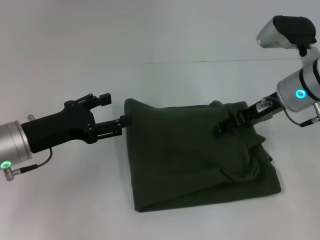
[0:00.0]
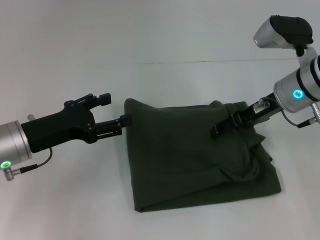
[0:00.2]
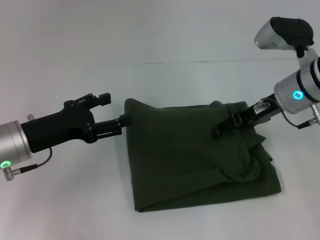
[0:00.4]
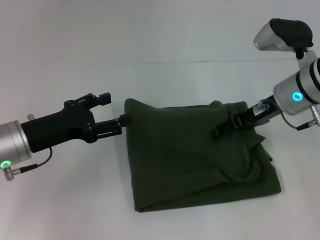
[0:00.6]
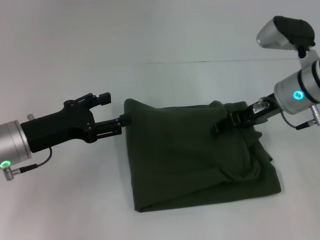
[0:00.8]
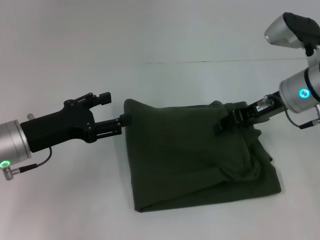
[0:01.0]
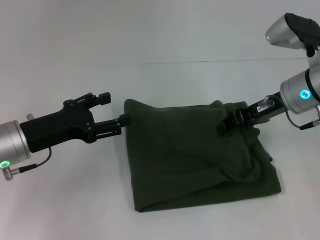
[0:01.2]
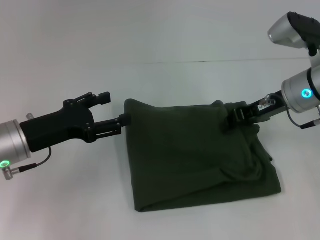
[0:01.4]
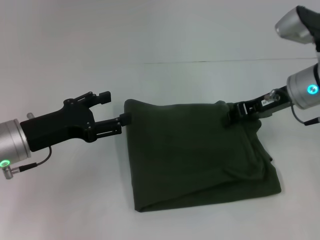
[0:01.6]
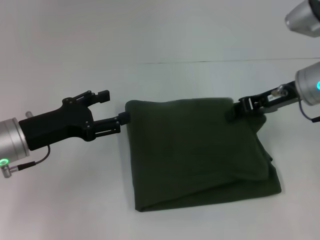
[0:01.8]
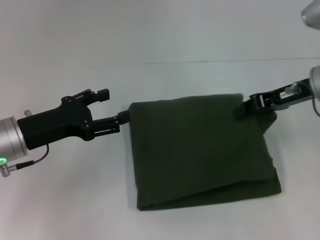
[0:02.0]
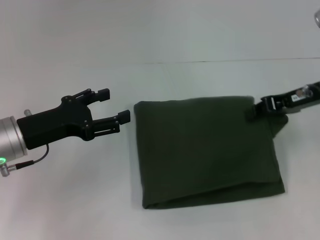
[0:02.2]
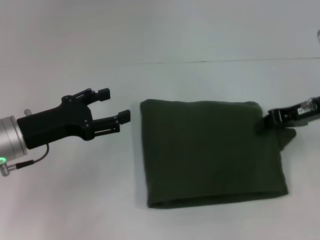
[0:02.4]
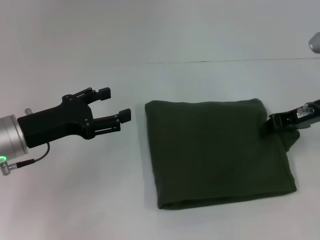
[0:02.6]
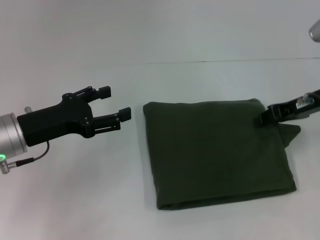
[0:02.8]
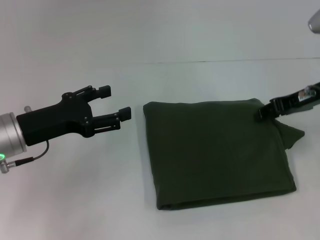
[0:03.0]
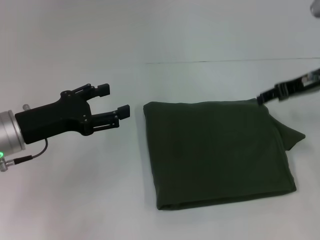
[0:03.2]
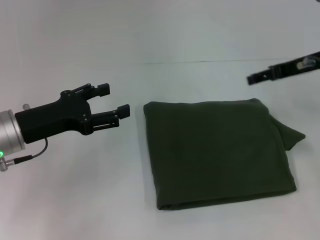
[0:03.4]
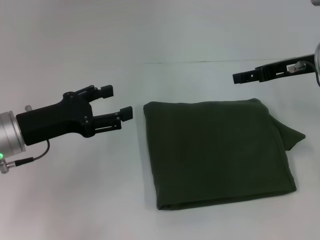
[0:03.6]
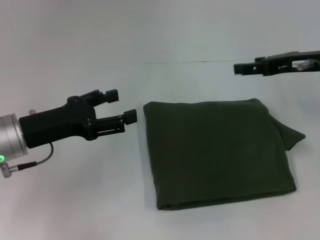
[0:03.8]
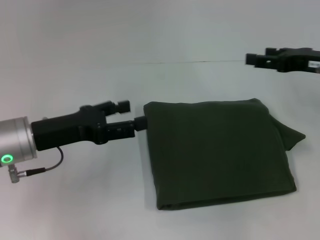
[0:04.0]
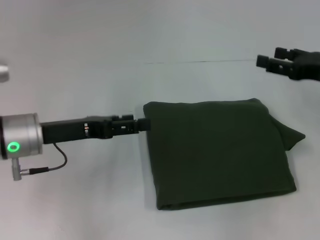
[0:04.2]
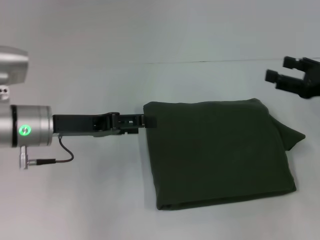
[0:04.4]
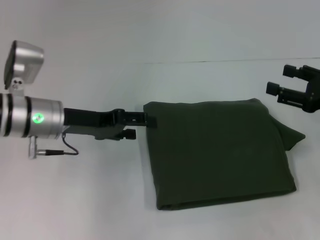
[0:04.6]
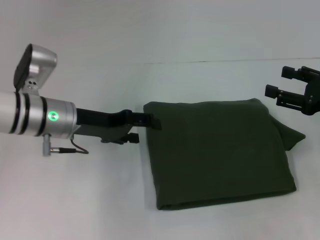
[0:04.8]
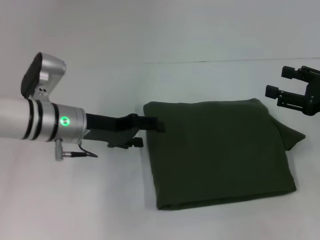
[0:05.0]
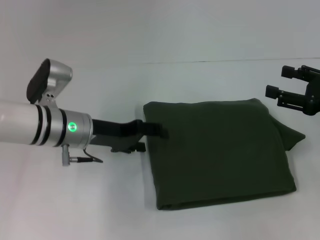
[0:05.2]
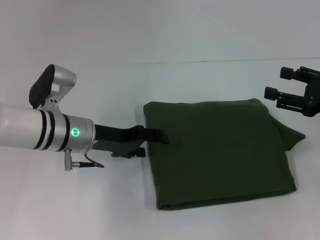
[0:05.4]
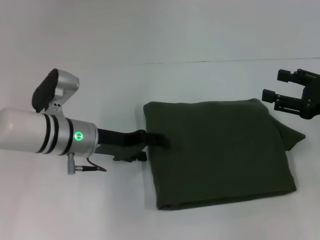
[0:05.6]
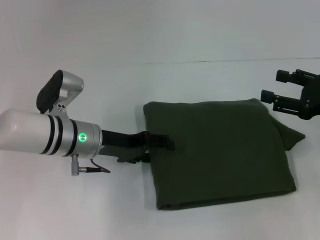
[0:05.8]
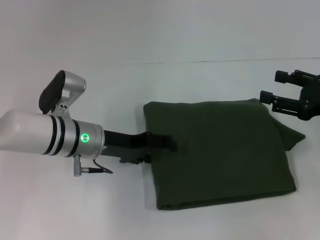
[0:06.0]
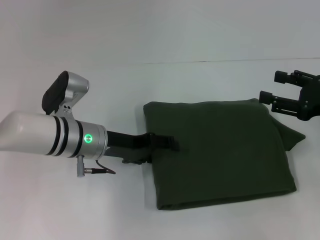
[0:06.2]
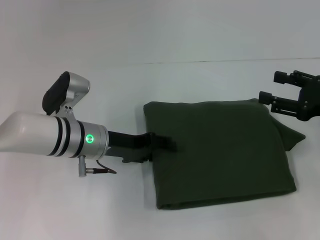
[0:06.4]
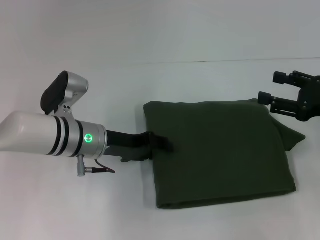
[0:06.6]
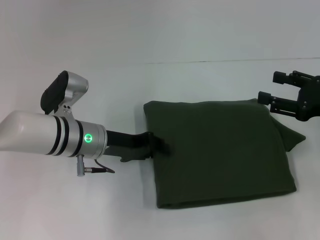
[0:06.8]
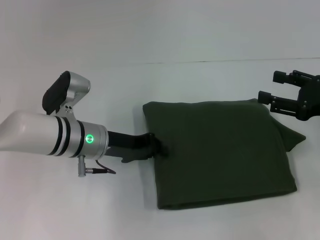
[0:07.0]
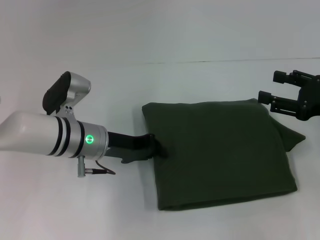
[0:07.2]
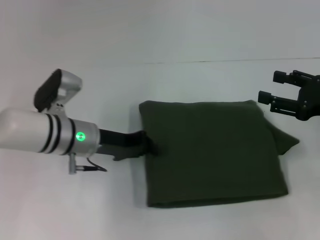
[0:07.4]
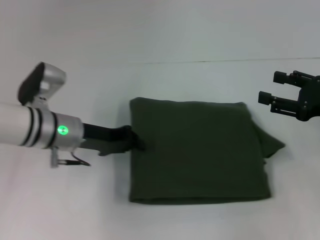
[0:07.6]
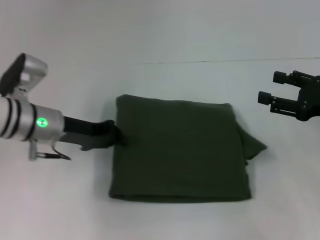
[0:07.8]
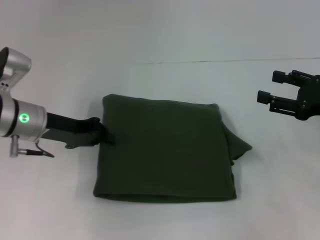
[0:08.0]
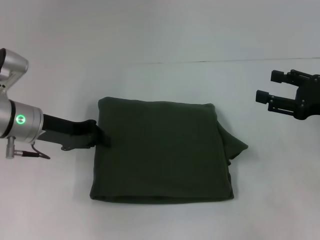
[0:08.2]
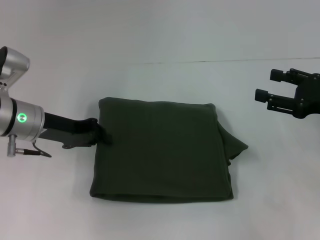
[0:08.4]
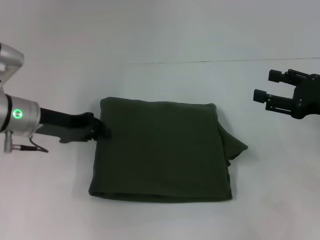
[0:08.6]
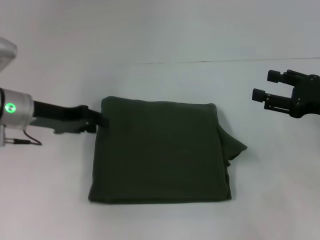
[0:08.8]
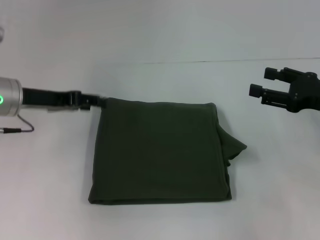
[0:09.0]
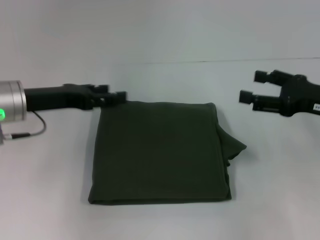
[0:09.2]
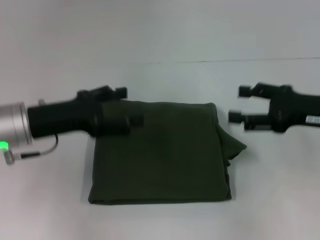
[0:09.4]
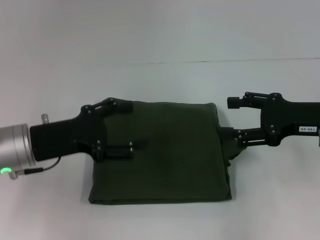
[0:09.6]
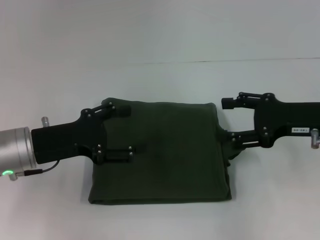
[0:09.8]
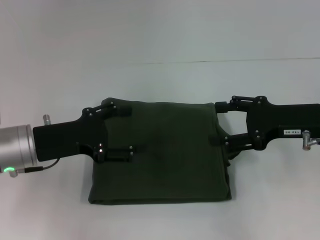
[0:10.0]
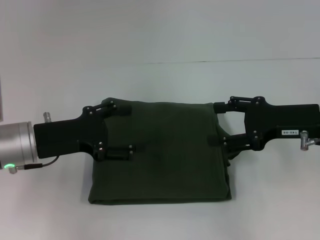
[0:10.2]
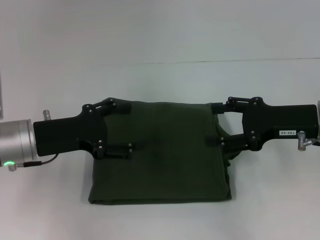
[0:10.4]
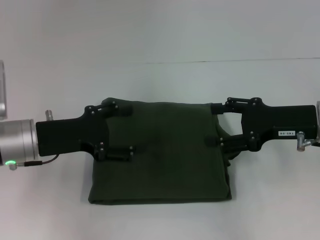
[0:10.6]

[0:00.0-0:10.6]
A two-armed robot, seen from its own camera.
0:00.0 to 0:01.6: The right gripper closes.
0:01.6 to 0:03.0: The grippers stay close to where they were, moving slightly.
0:03.0 to 0:04.6: The right gripper travels backward and to the right by some 10 cm, and opens its fingers. Meanwhile the left gripper shifts by some 5 cm.
0:04.6 to 0:06.0: The left gripper shifts some 5 cm to the right.
0:06.0 to 0:07.6: The left gripper closes up.
0:07.6 to 0:09.0: The left gripper is displaced to the left and upward by about 10 cm.
0:09.0 to 0:10.6: The right gripper travels to the left by roughly 5 cm; the left gripper shifts approximately 5 cm backward, and opens up.

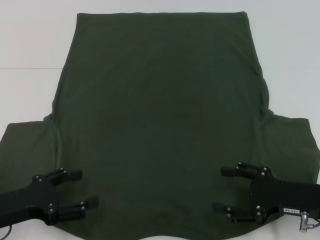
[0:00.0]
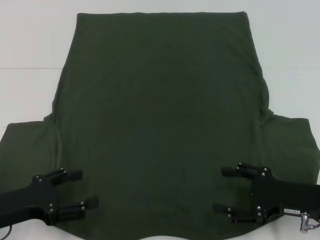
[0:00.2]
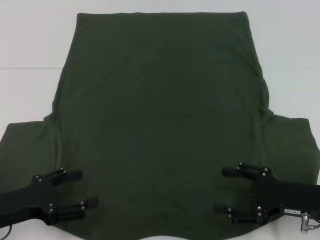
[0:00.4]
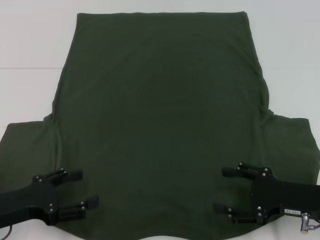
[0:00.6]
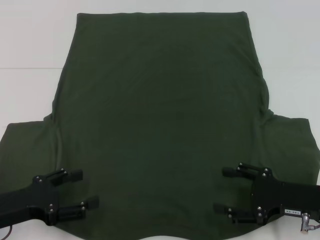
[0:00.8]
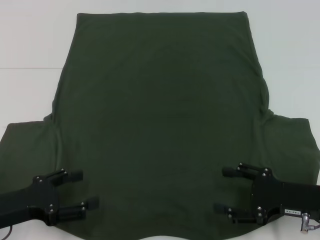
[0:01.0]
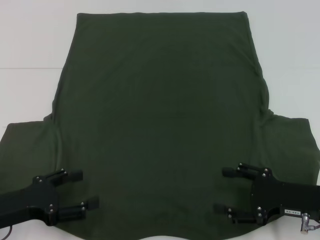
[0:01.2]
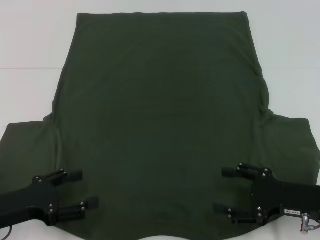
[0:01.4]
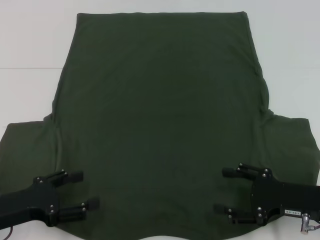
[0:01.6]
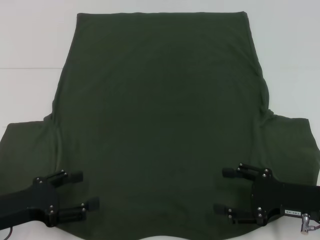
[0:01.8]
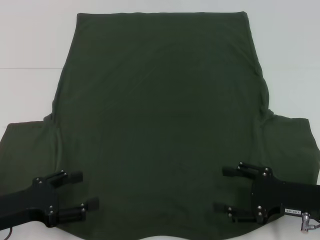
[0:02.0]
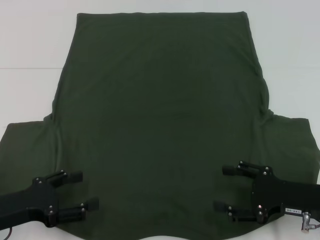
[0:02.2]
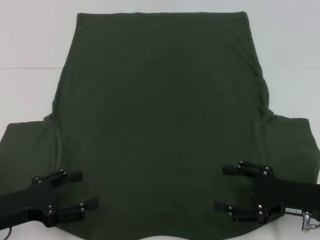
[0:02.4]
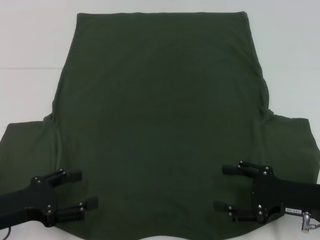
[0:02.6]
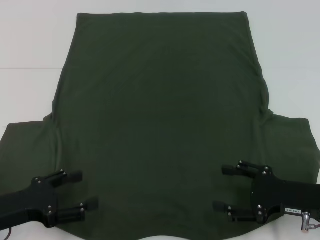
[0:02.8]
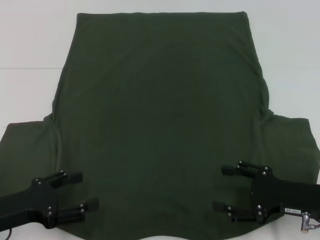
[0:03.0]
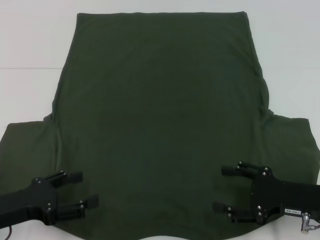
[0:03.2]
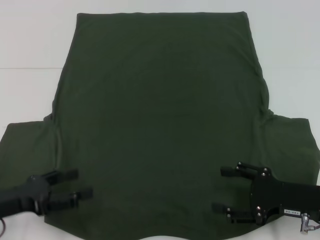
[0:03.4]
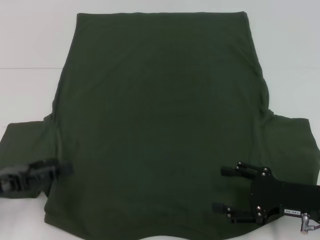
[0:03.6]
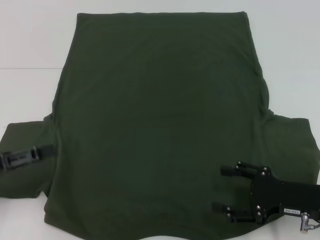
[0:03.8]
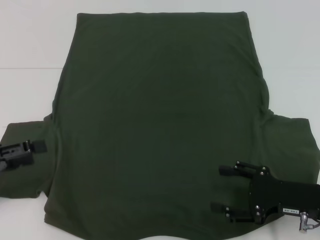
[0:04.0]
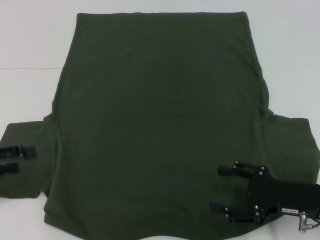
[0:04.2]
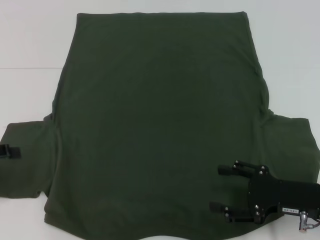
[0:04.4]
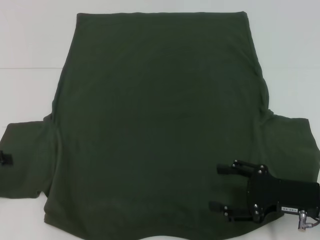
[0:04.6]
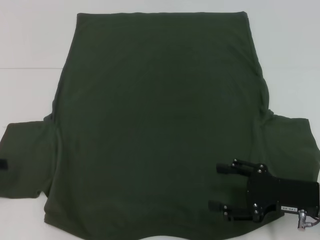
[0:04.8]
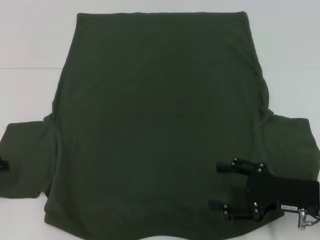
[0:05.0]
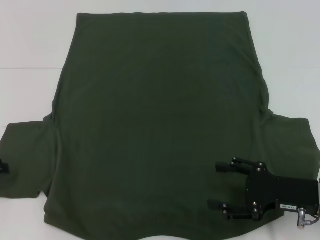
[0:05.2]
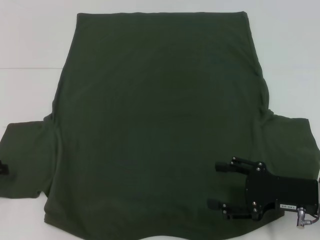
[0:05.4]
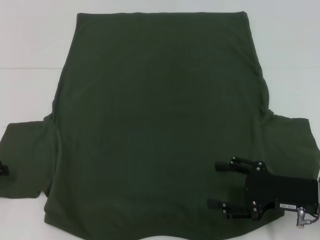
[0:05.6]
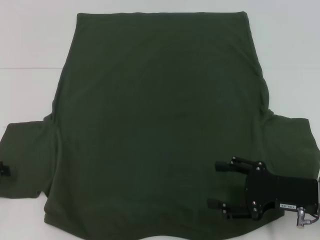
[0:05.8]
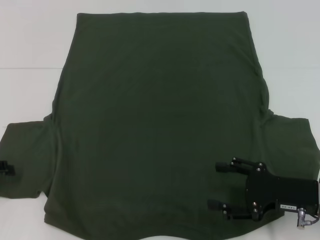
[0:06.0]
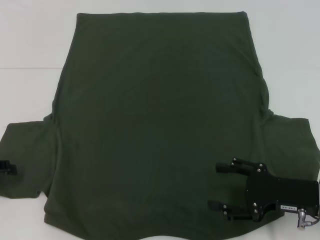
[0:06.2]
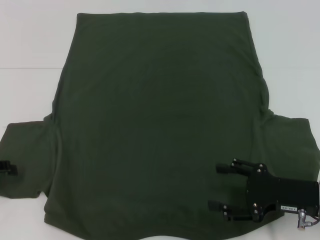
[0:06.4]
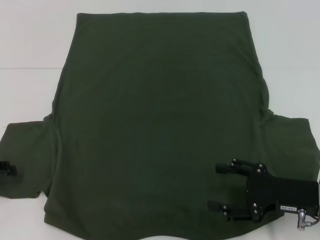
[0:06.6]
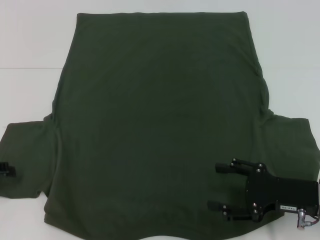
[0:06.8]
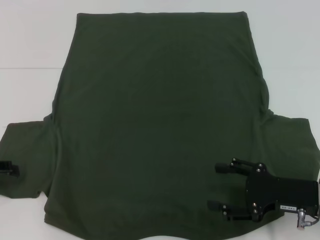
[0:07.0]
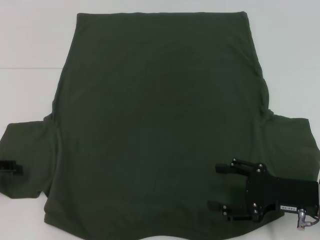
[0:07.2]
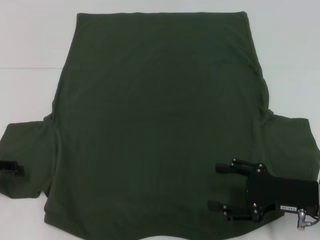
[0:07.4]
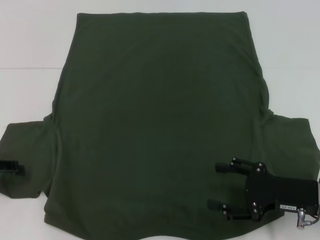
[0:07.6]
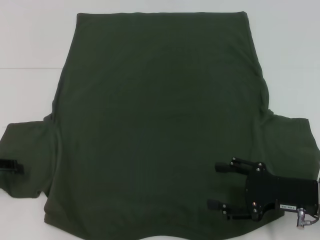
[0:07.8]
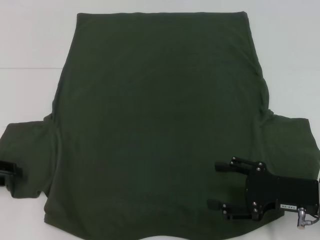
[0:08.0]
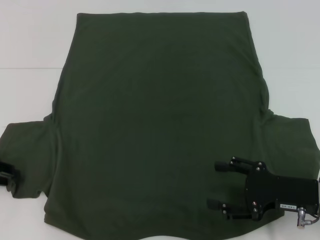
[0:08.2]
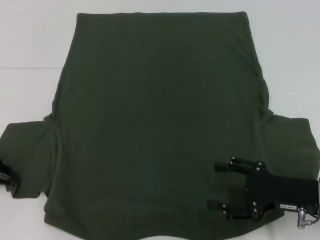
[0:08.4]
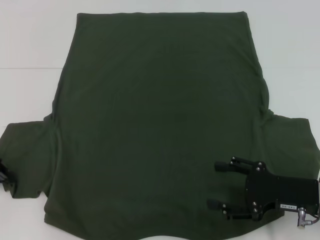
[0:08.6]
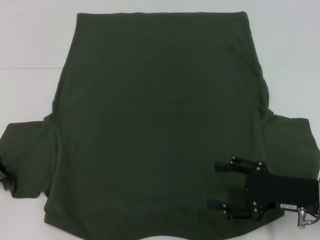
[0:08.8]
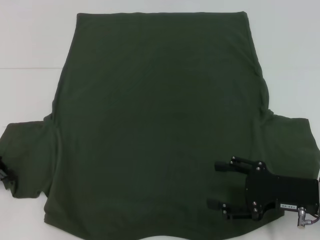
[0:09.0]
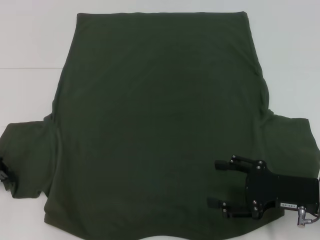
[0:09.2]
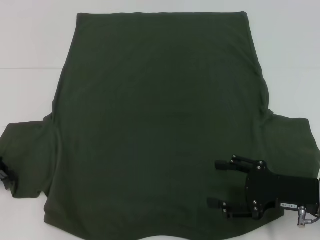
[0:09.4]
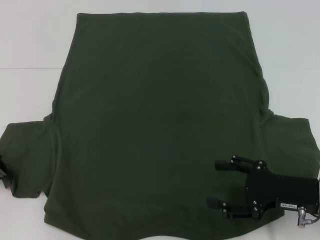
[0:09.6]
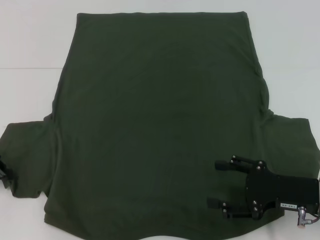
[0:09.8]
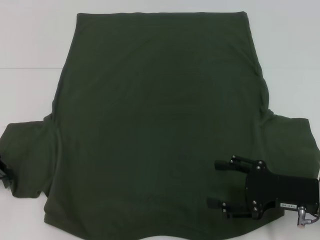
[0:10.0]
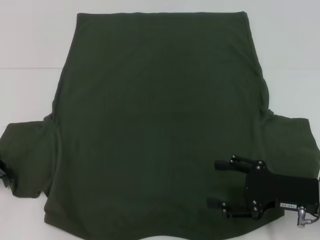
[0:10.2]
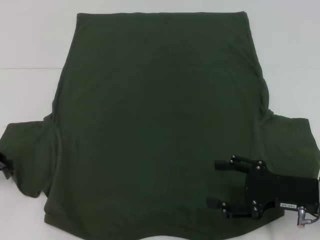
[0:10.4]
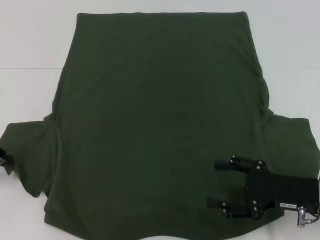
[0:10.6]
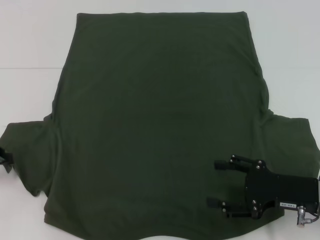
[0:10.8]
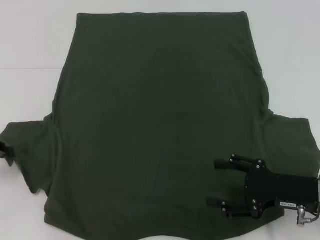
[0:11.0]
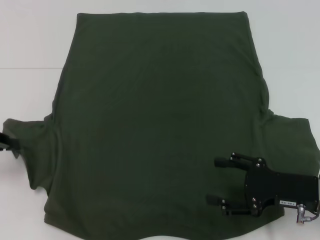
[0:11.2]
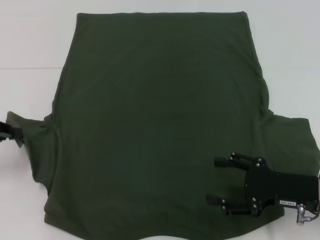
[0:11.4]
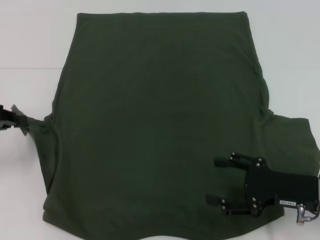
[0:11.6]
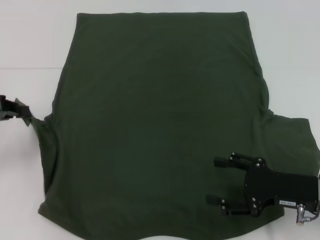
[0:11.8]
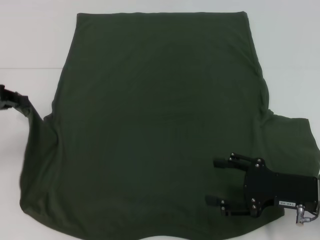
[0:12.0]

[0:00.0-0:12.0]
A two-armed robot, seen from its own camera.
0:00.0 to 0:03.0: Both grippers stay about where they are.
0:03.0 to 0:04.4: The left gripper travels to the left and upward by some 10 cm.
0:04.4 to 0:06.0: The grippers move only a little.
0:10.4 to 0:12.0: The left gripper travels upward by roughly 5 cm.
